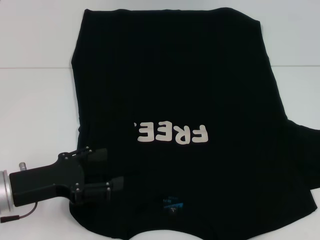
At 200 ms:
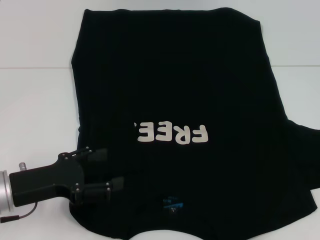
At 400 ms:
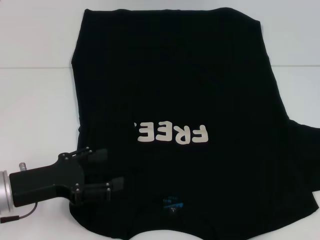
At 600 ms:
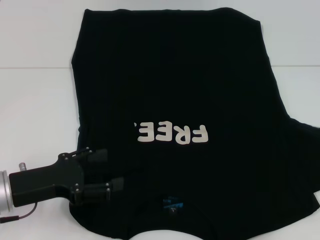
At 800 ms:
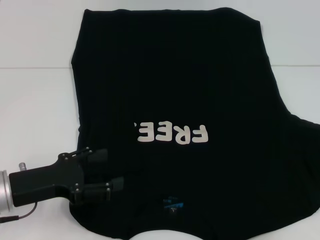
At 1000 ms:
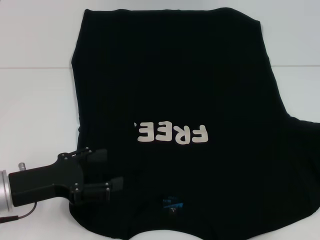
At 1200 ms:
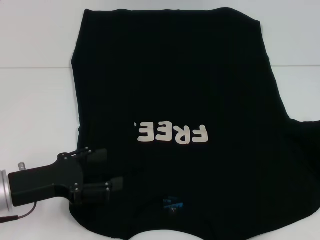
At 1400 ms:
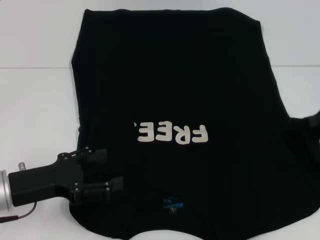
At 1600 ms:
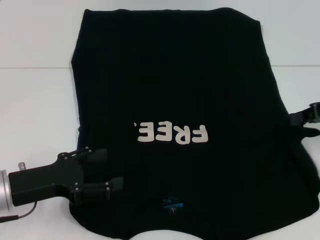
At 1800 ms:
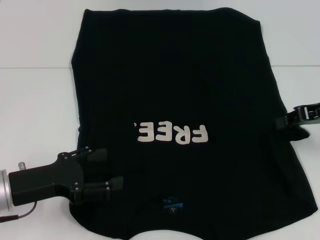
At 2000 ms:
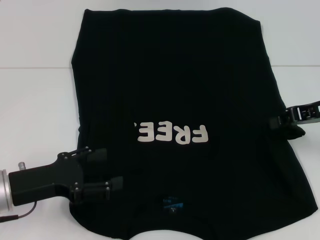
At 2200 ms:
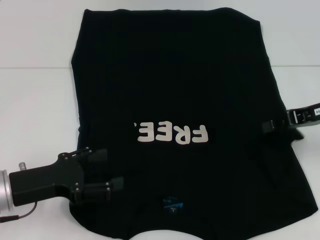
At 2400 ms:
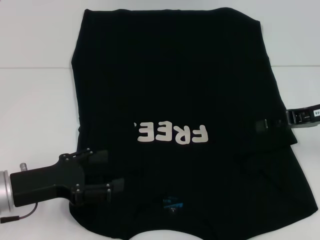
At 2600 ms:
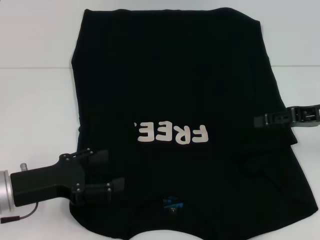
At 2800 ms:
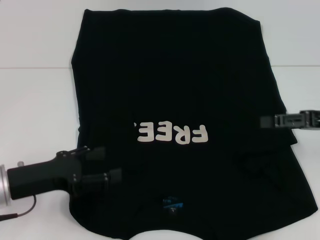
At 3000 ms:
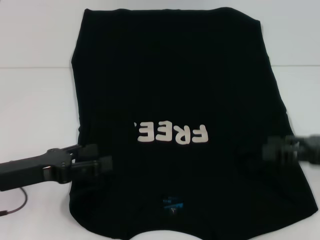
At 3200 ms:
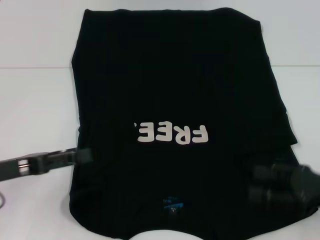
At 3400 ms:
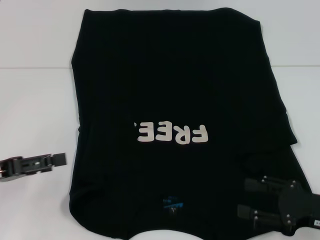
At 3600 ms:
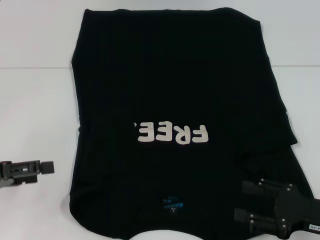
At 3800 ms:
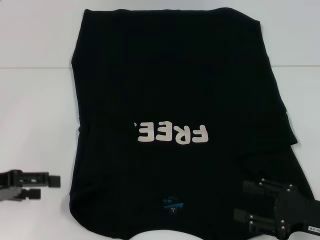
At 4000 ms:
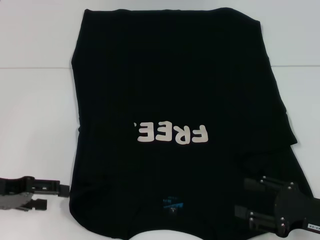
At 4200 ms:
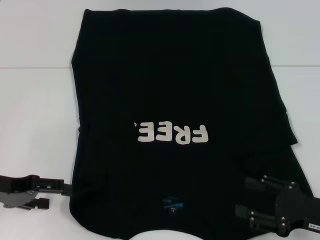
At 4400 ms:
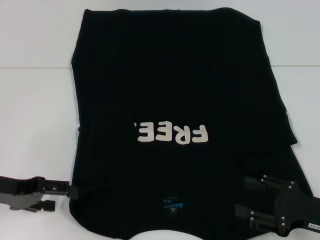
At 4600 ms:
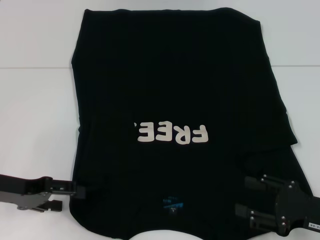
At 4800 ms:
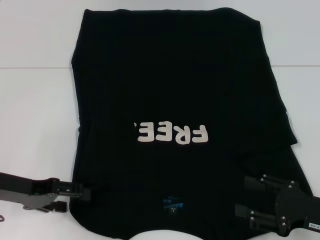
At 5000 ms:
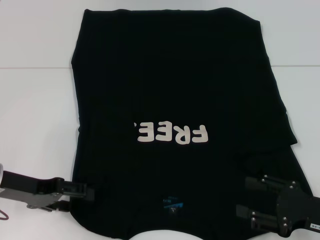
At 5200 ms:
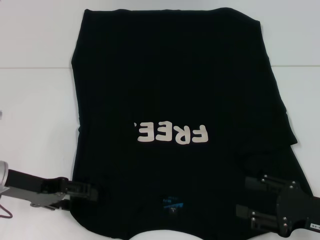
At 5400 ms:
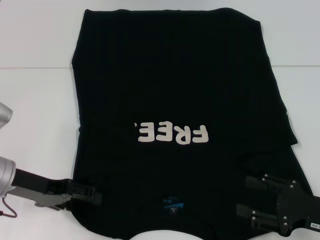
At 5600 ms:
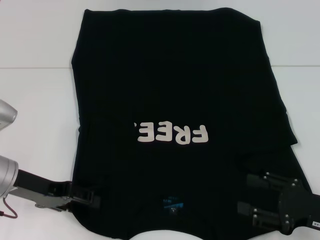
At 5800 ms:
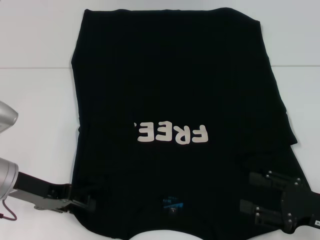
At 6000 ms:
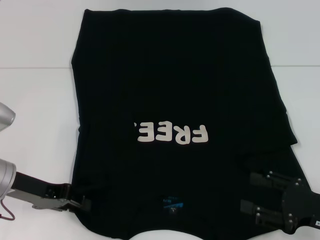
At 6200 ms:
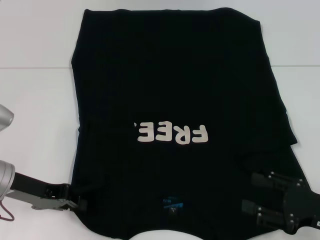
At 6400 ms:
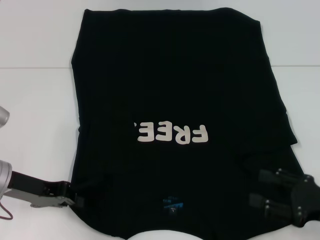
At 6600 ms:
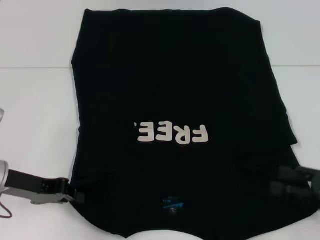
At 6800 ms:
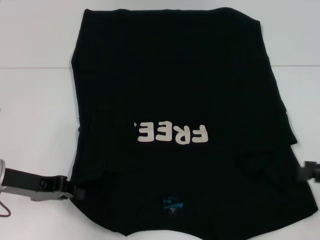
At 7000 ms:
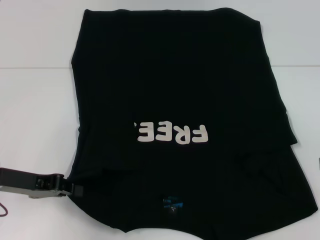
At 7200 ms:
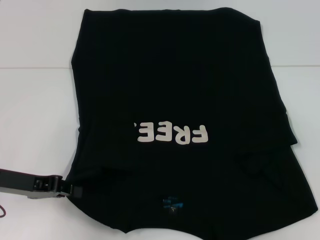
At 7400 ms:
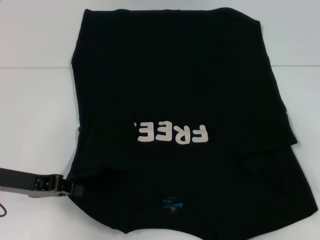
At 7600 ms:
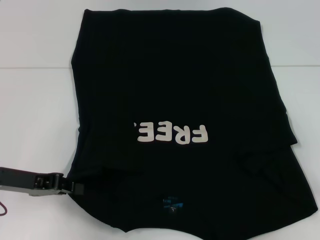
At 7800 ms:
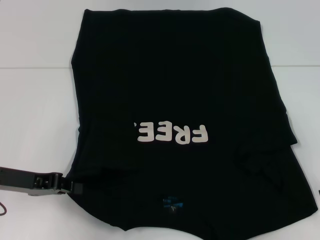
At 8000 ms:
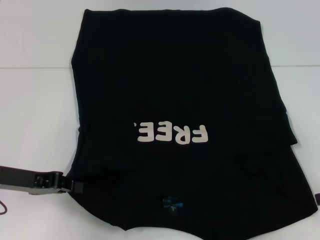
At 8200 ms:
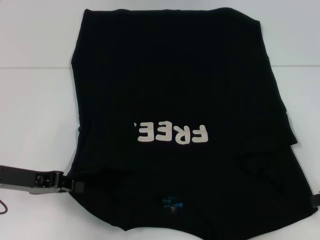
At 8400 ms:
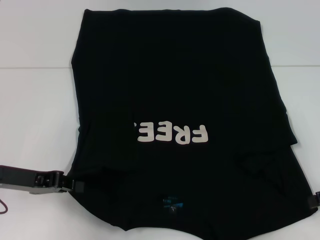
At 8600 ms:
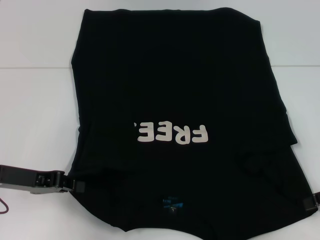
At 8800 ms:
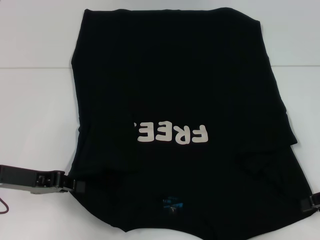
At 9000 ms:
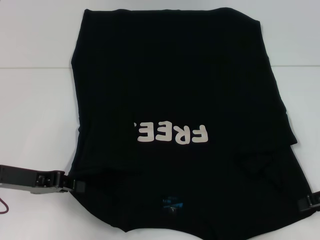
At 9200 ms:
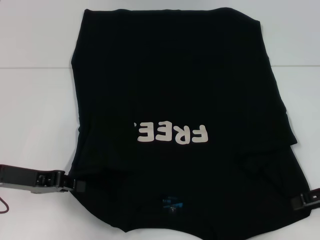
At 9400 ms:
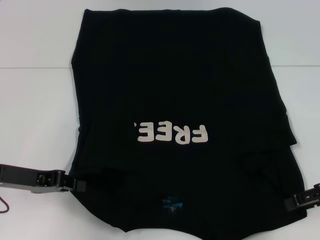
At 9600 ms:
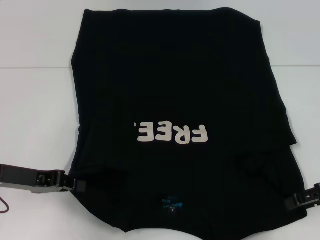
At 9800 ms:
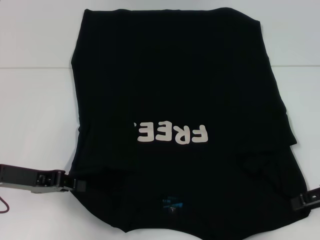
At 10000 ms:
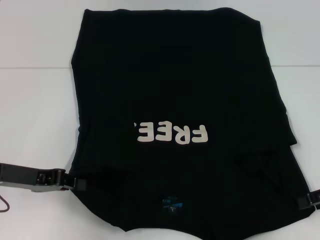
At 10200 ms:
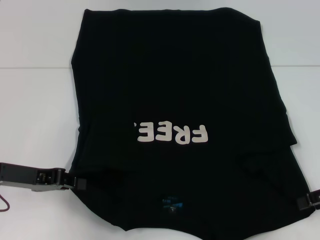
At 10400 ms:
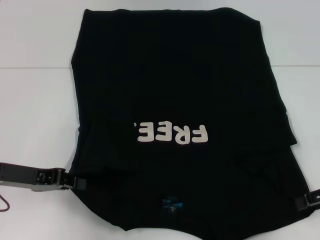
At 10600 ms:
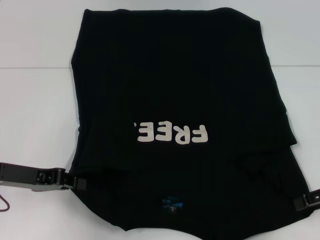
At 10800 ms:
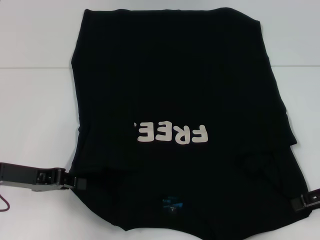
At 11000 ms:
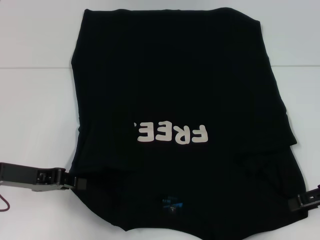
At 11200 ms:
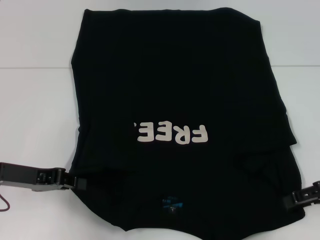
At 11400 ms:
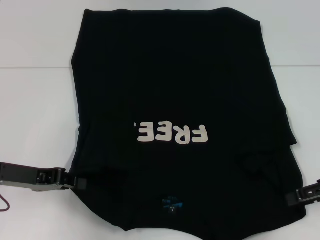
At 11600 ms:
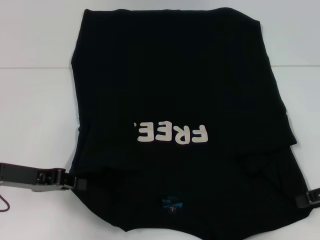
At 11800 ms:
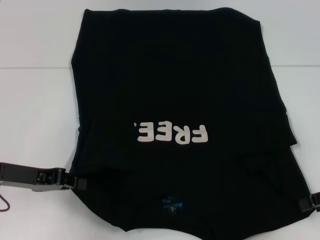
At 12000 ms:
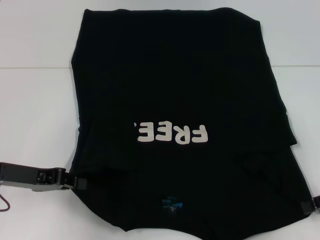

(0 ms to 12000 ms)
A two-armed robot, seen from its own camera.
Step, 0 ms - 3200 ms: Fold the bottom right sleeve with your right hand.
Step, 3400 ms - 9800 ms: Grab the bottom left corner with your left hand.
0 ms - 1600 ms: The right gripper shifts approximately 5 cm upward.
1600 ms - 3000 ms: The right gripper shifts about 10 cm backward and downward, and opens its fingers.
3000 ms - 4400 ms: The right gripper goes about 10 cm downward and backward.
4400 ms - 6000 ms: The left gripper closes its fingers.
6000 ms - 7600 ms: The right gripper goes roughly 15 cm upward, to the right and forward; the left gripper closes its fingers.
7600 ms - 9000 ms: The grippers move only a little.
9000 ms - 10400 ms: The grippers stay close to where they were, moving slightly.

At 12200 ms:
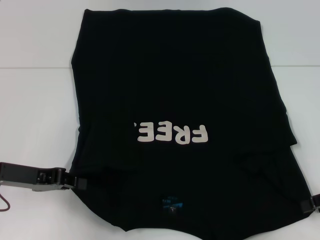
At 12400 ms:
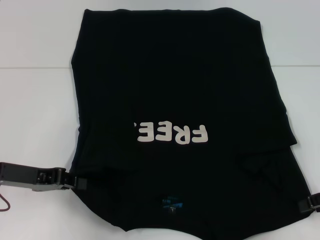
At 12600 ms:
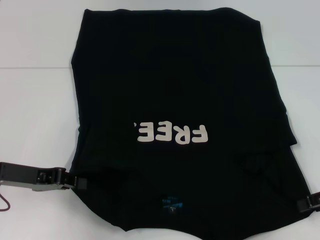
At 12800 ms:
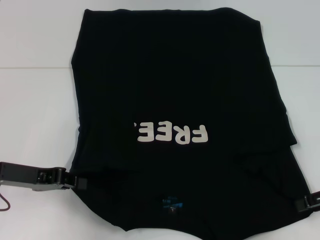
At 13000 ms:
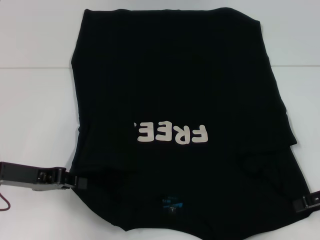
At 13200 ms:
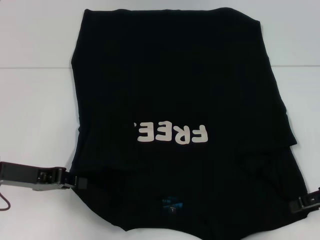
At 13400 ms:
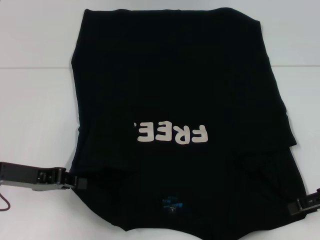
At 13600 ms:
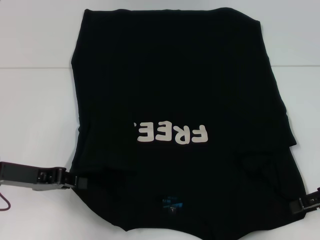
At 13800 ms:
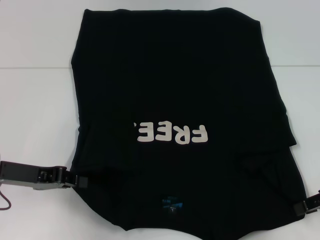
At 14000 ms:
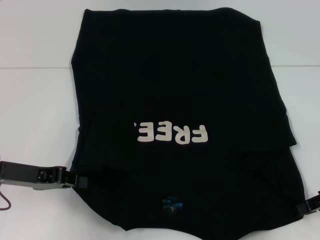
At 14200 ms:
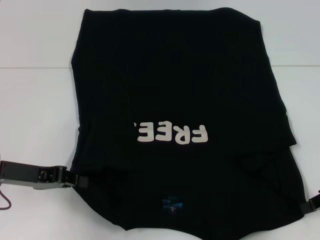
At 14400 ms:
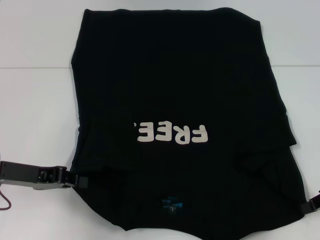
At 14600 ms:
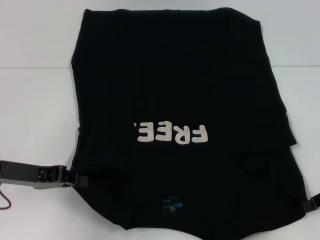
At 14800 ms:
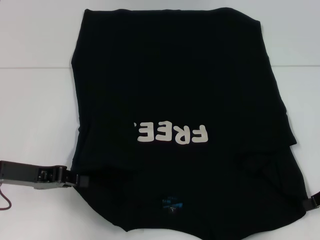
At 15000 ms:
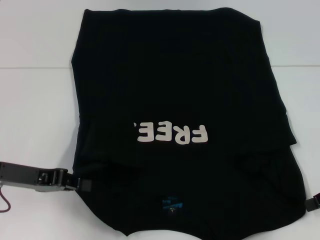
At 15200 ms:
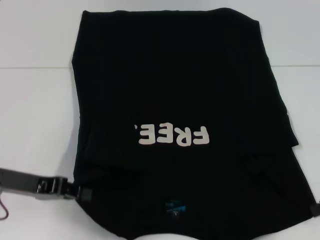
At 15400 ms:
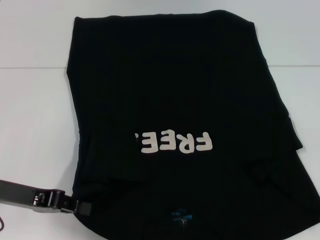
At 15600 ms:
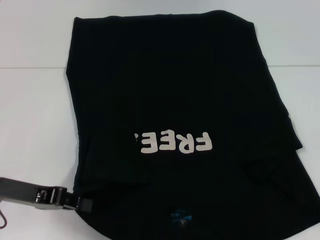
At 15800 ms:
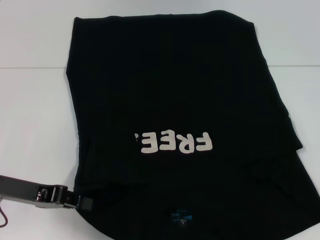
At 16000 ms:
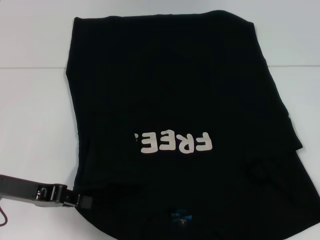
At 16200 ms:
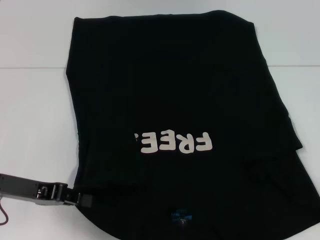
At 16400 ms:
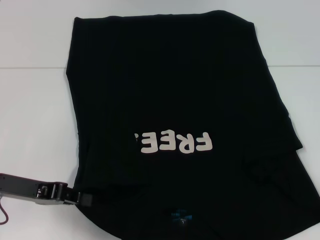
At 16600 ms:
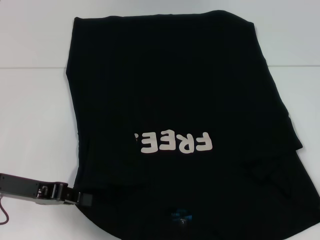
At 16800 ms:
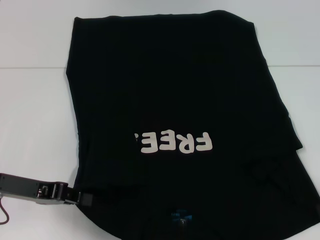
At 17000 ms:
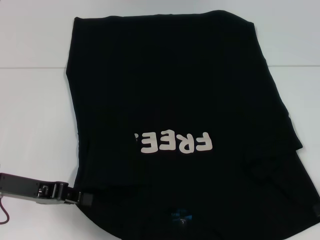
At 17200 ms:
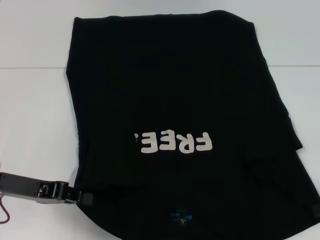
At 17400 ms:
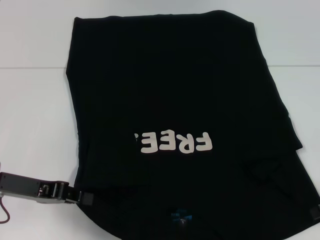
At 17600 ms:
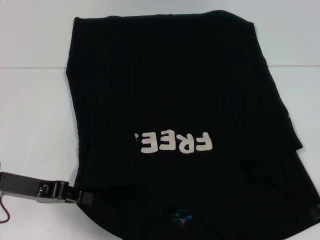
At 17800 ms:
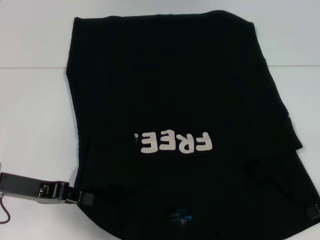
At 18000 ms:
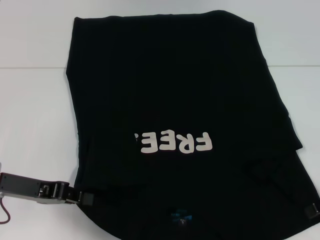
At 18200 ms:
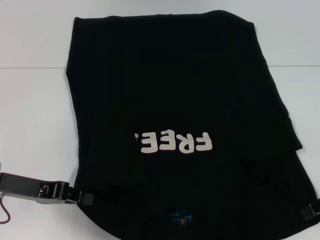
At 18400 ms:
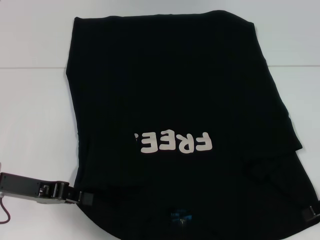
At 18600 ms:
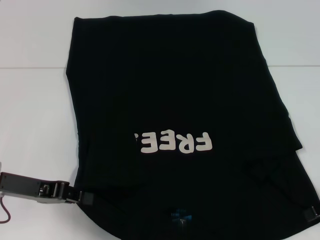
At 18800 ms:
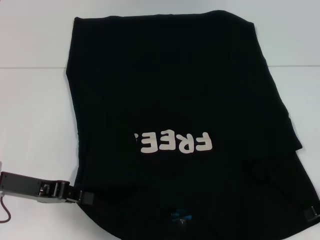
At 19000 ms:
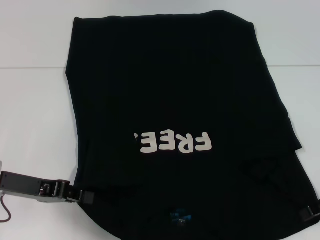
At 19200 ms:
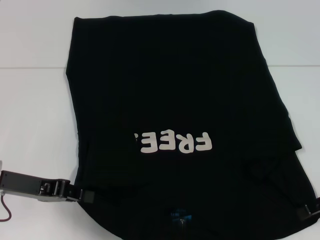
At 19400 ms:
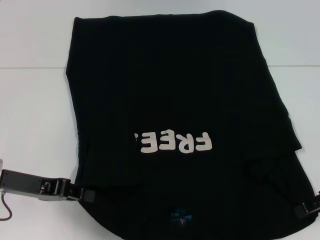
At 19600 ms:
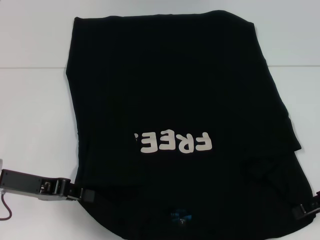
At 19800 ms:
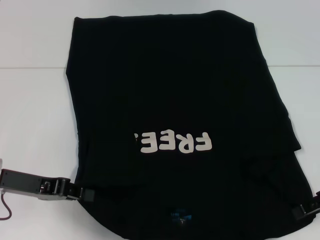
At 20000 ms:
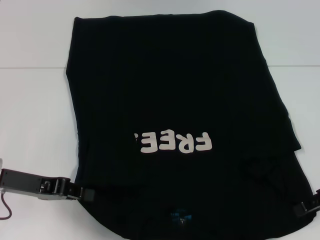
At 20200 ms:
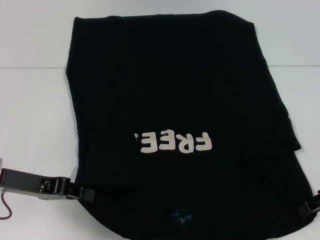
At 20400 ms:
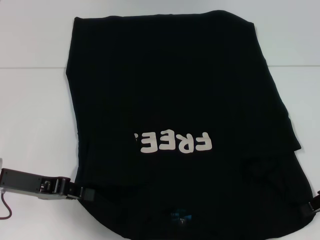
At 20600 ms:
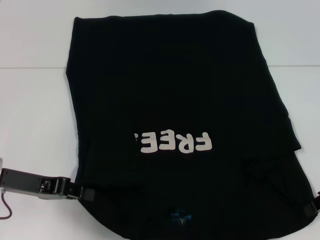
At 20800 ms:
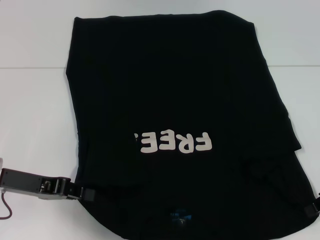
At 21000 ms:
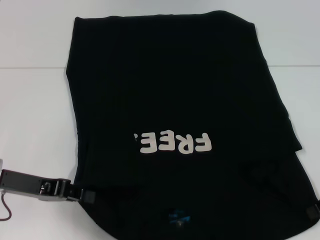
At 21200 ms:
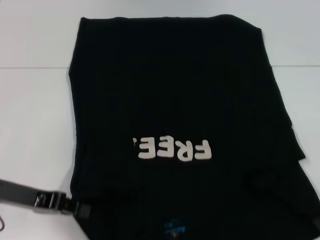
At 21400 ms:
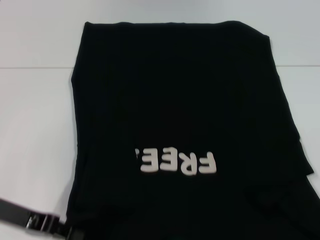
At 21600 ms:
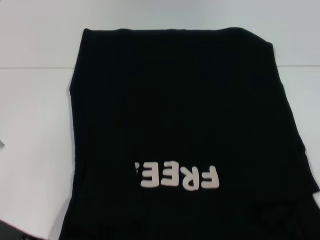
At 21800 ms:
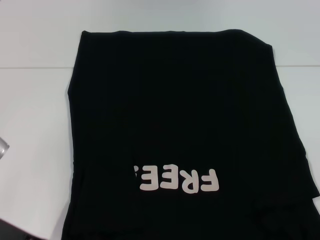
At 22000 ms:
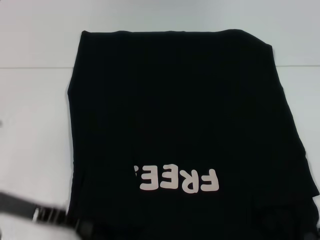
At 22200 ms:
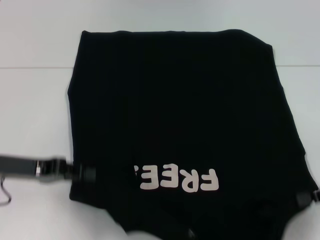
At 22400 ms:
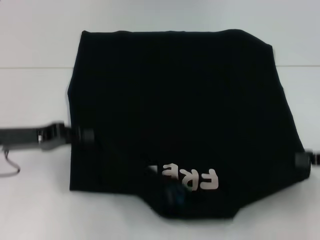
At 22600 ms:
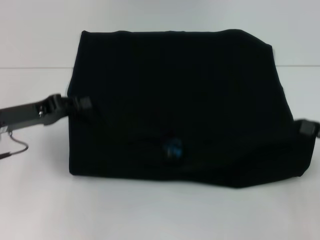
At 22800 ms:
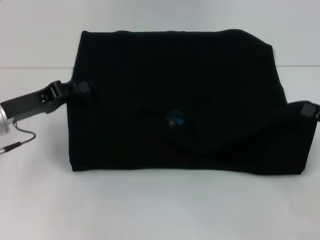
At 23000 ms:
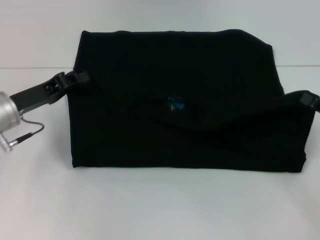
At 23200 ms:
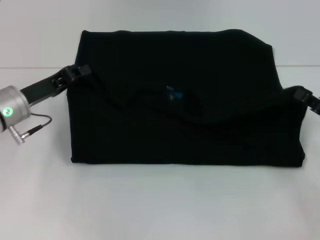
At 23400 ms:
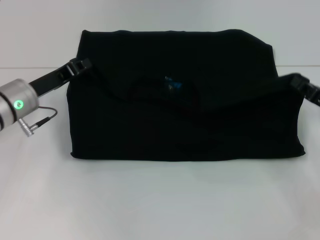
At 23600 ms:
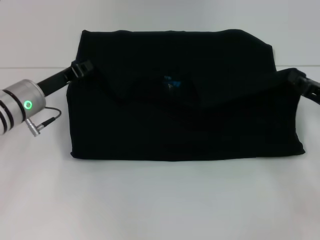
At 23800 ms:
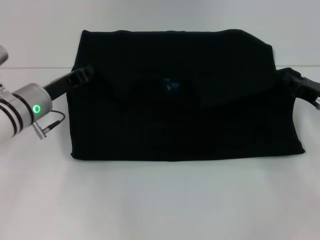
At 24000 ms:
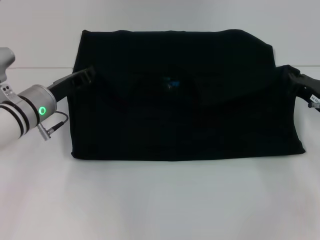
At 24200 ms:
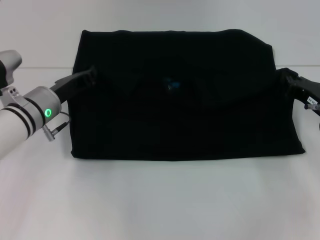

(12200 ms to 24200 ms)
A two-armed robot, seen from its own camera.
Step, 12200 ms - 14800 ms: Grab the bottom right corner with your right hand.
12200 ms - 13800 ms: The grippers stay close to where they were, moving slightly.
13800 ms - 15200 ms: The right gripper closes its fingers.
15200 ms - 16600 ms: The right gripper opens its fingers.
16600 ms - 18200 ms: The grippers make only small movements.
18200 ms - 19800 ms: Neither gripper changes place.
19800 ms - 21200 ms: The right gripper closes its fingers.
21200 ms - 22600 ms: The left gripper shifts by about 5 cm.
22600 ms - 24200 ms: The right gripper travels forward, to the left and downward by roughly 15 cm, while the left gripper goes approximately 10 cm to the right and forward.
